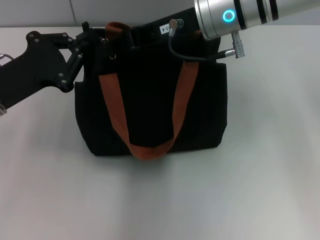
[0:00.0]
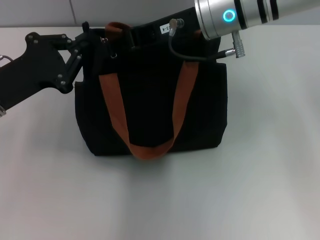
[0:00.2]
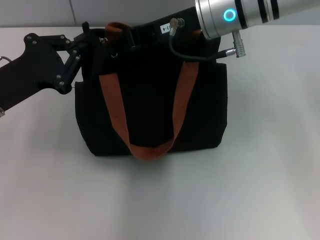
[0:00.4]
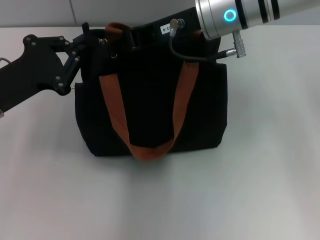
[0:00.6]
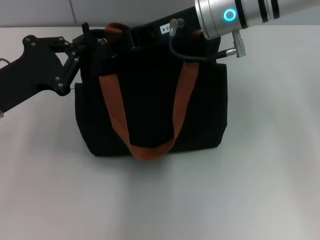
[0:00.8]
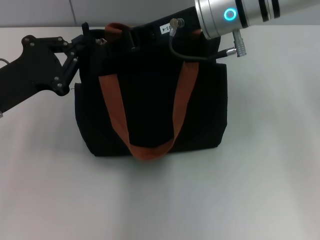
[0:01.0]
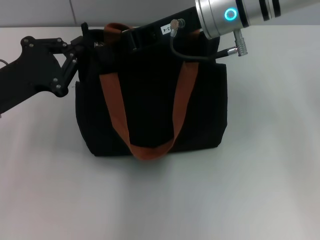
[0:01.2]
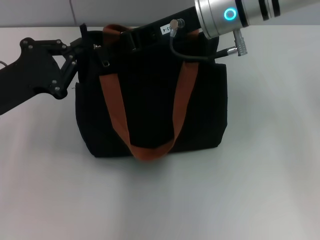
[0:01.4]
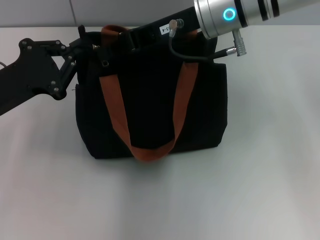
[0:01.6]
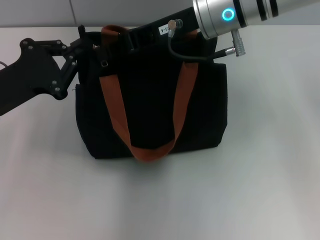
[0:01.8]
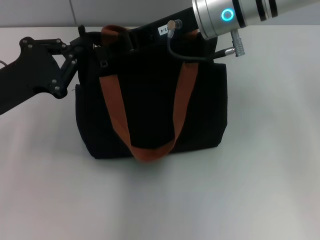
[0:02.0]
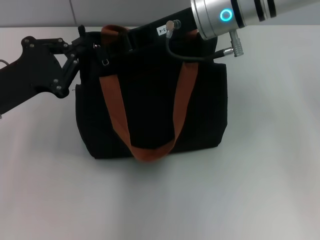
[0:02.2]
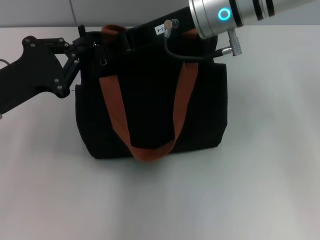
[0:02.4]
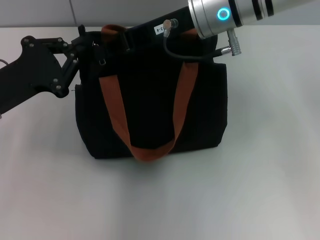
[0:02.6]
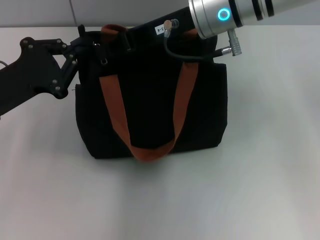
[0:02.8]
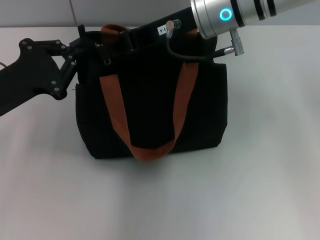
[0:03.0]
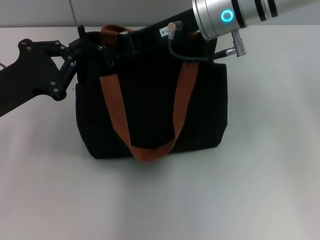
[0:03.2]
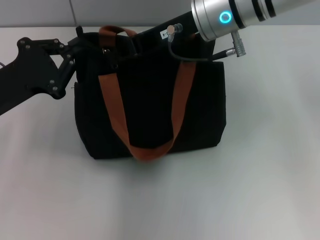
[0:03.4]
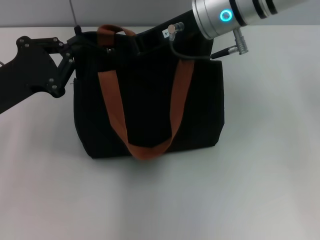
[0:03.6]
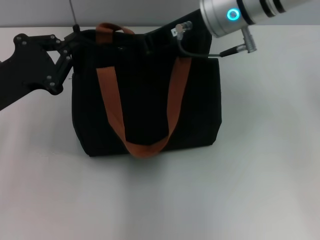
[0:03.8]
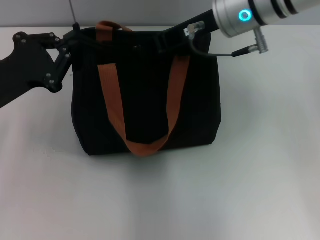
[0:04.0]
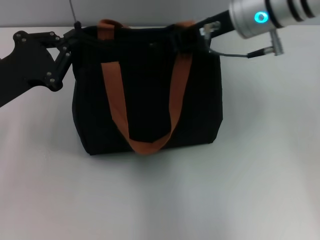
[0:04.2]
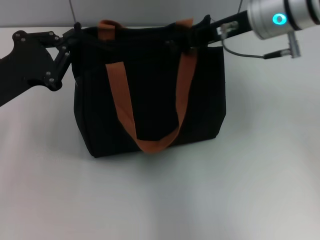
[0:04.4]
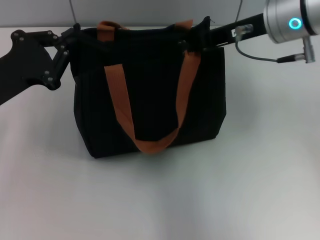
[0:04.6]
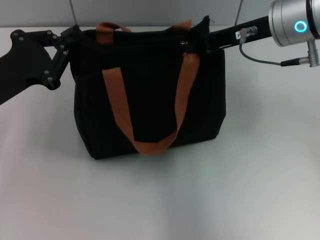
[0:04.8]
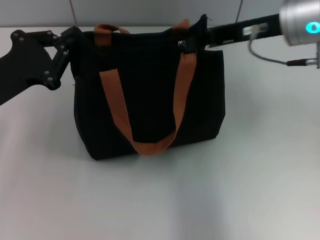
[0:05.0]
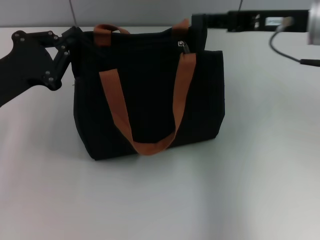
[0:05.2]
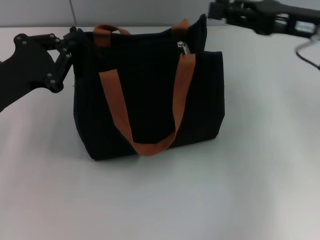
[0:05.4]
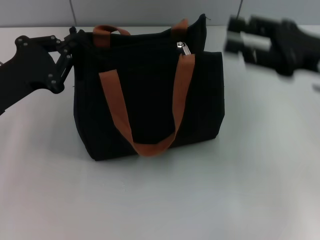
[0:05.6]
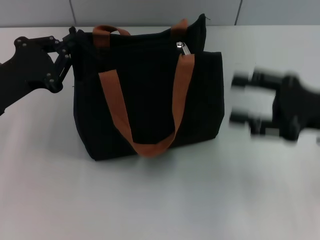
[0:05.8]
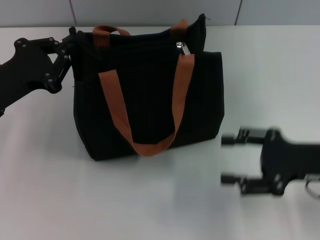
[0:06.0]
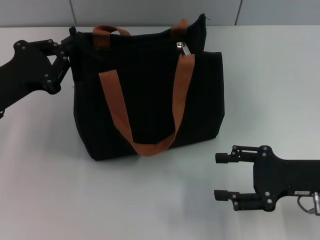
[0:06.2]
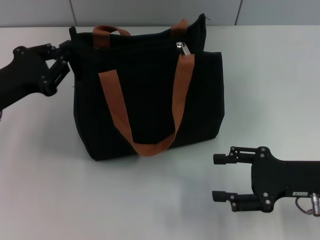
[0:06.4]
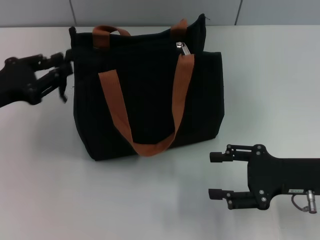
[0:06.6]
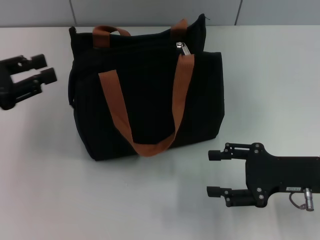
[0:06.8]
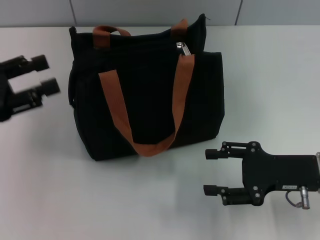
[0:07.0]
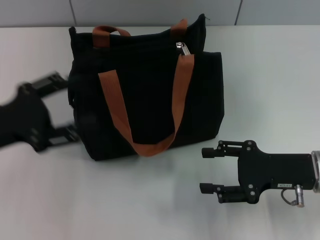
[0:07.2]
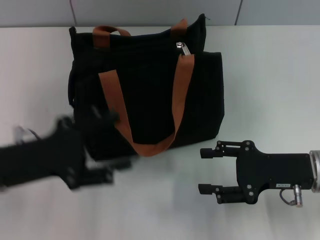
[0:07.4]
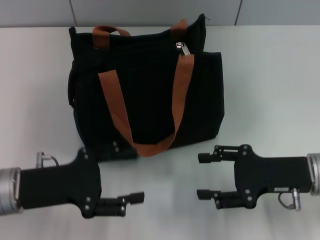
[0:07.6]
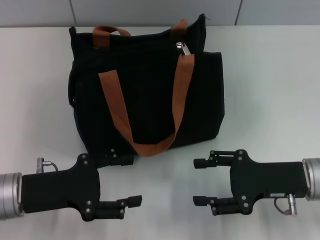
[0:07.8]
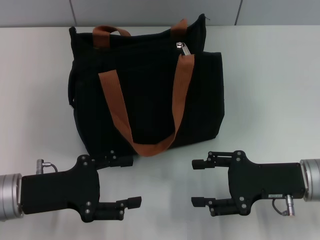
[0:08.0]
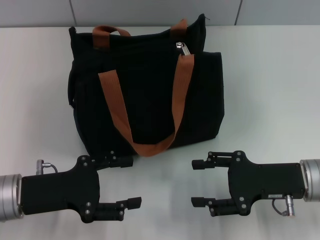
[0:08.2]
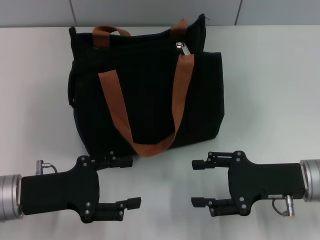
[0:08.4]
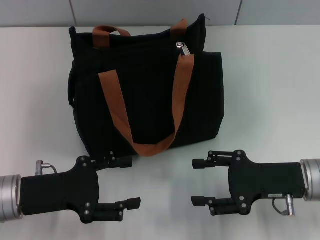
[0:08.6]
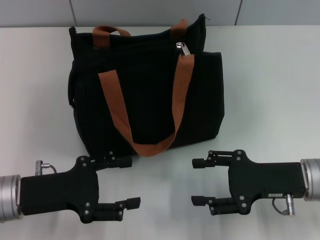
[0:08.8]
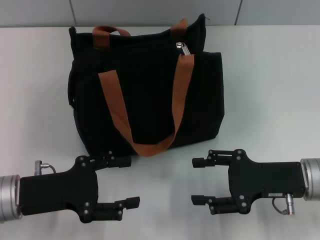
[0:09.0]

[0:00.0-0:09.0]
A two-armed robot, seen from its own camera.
Step, 0:00.0 to 0:05.0: Pull up the zipper with your right hand.
Step, 0:05.2 to 0:06.6: Grab the zipper with your left hand.
0:00.0 to 0:03.0: Both grippers stay about where they are.
0:03.0 to 0:04.4: The right gripper shifts about 5 cm to the right.
0:04.4 to 0:06.0: The right gripper is displaced downward, backward and to the right by roughly 25 cm, and opens up.
0:06.0 to 0:07.6: The left gripper moves backward, about 5 cm, and opens up.
0:07.6 to 0:09.0: There are only small adjustments of the grippers.

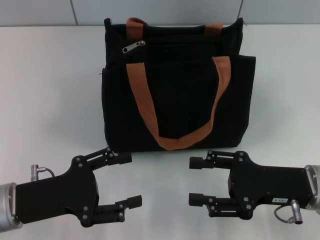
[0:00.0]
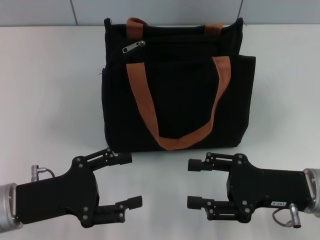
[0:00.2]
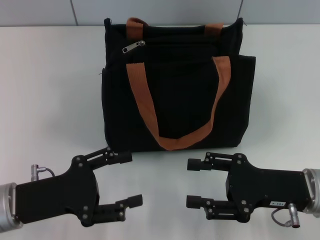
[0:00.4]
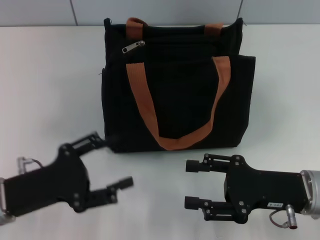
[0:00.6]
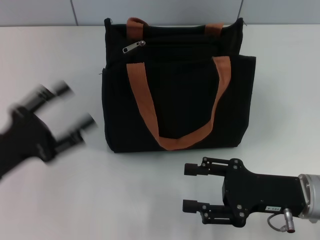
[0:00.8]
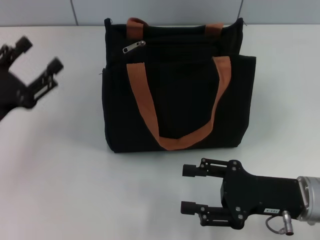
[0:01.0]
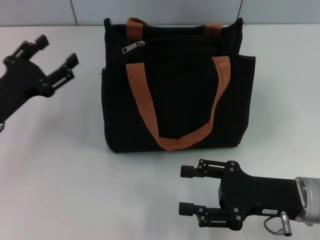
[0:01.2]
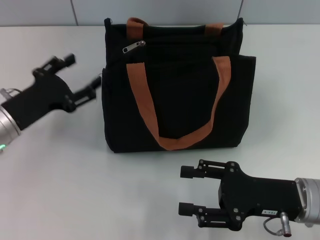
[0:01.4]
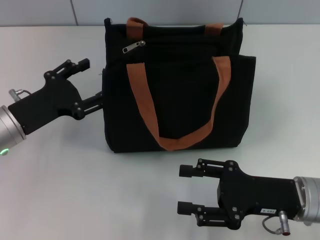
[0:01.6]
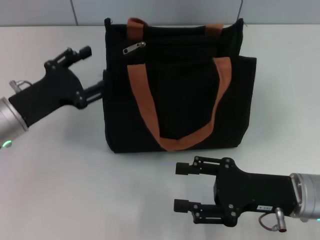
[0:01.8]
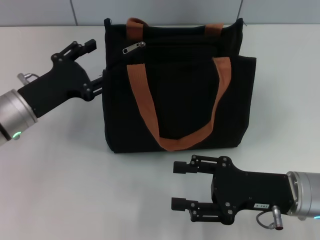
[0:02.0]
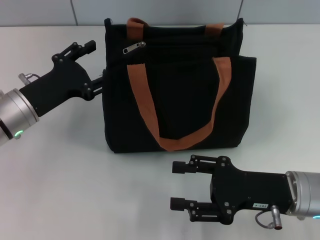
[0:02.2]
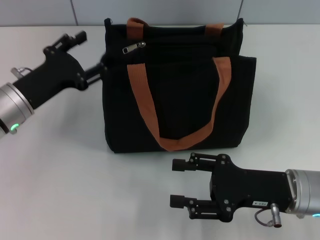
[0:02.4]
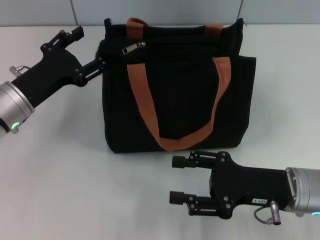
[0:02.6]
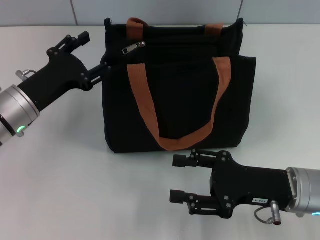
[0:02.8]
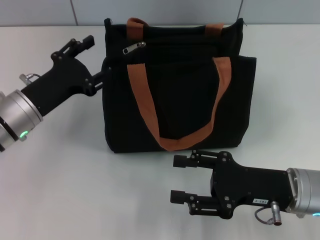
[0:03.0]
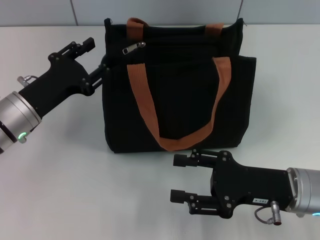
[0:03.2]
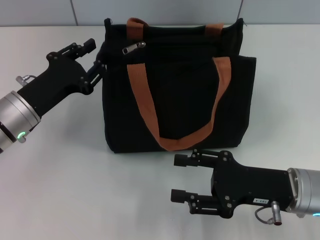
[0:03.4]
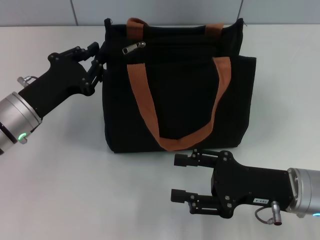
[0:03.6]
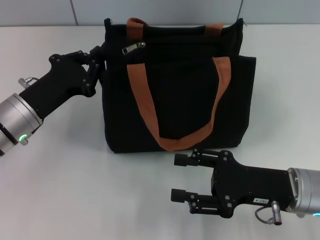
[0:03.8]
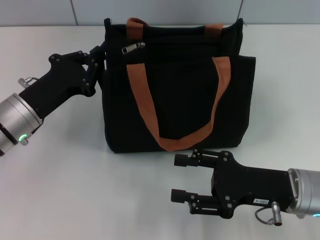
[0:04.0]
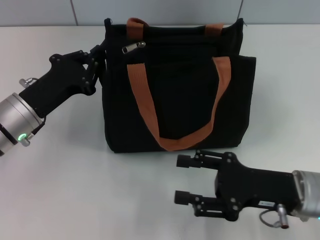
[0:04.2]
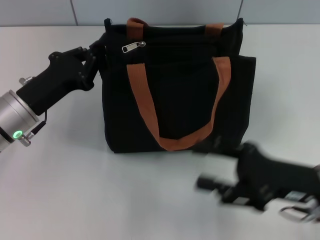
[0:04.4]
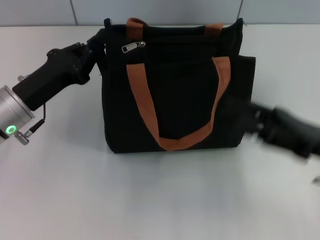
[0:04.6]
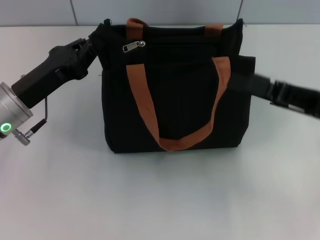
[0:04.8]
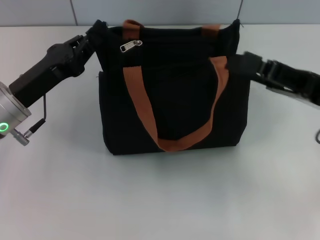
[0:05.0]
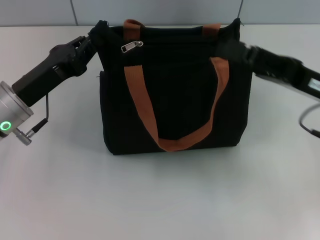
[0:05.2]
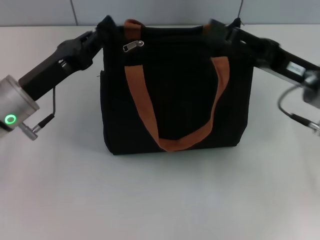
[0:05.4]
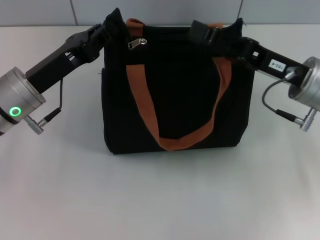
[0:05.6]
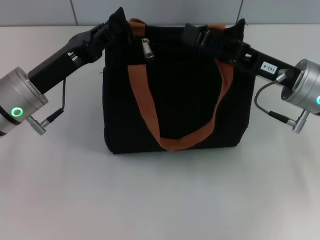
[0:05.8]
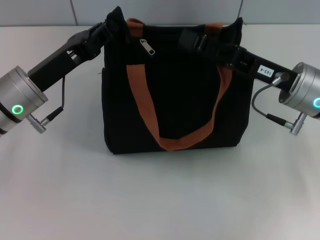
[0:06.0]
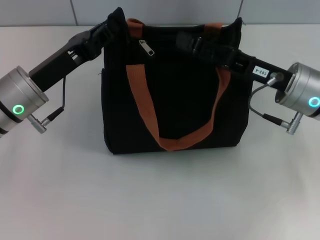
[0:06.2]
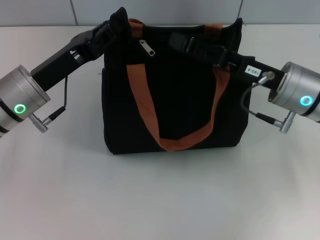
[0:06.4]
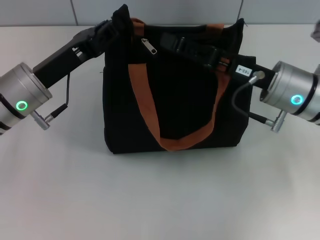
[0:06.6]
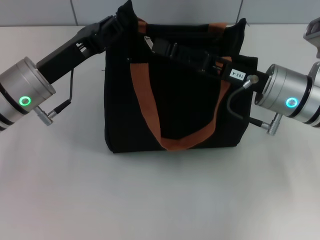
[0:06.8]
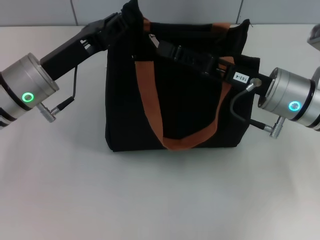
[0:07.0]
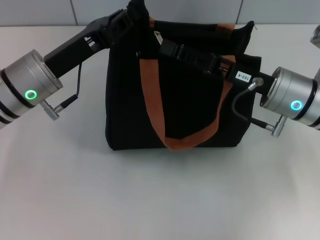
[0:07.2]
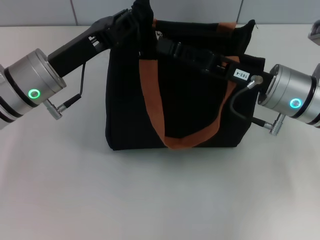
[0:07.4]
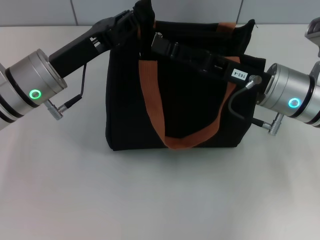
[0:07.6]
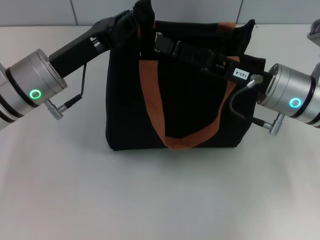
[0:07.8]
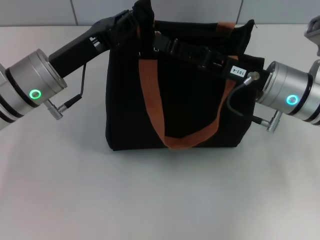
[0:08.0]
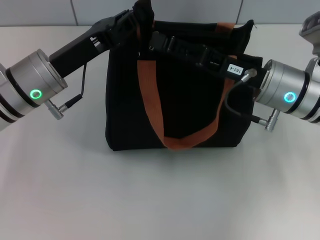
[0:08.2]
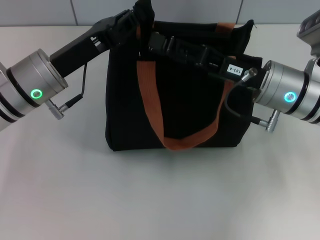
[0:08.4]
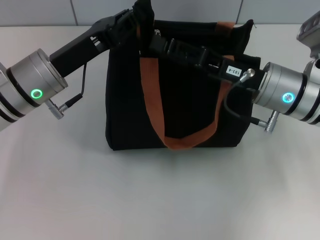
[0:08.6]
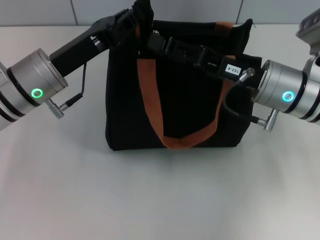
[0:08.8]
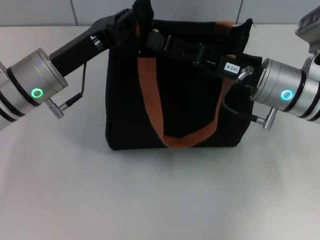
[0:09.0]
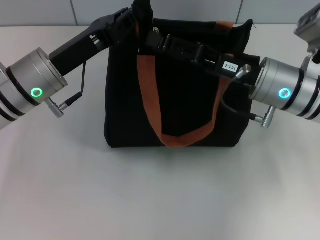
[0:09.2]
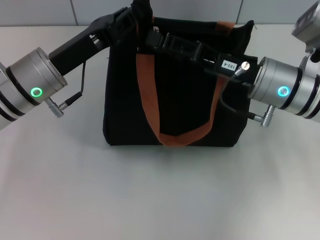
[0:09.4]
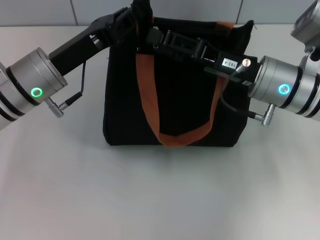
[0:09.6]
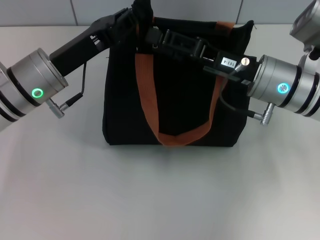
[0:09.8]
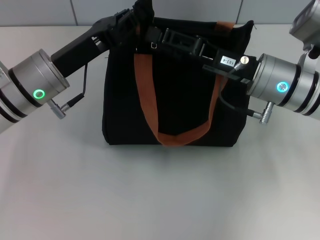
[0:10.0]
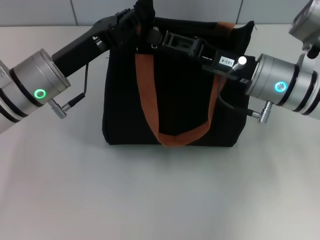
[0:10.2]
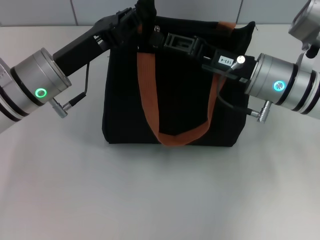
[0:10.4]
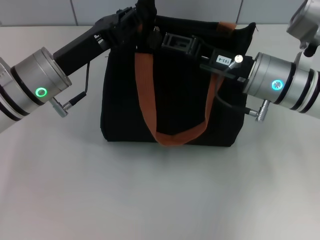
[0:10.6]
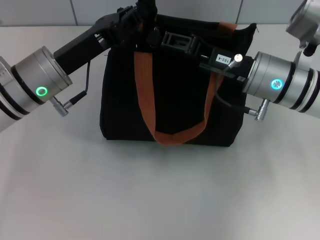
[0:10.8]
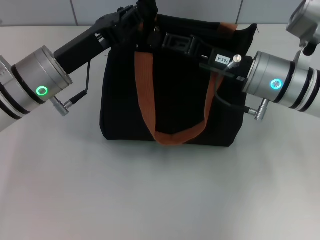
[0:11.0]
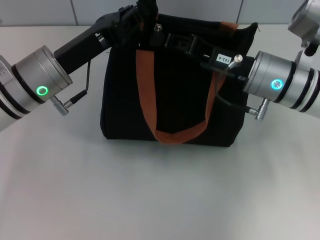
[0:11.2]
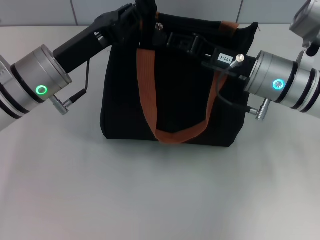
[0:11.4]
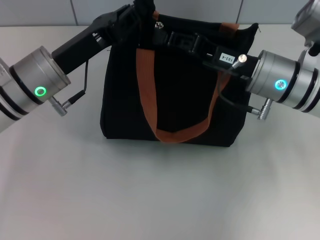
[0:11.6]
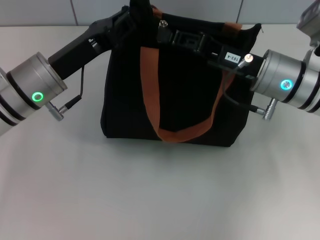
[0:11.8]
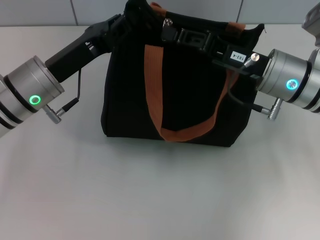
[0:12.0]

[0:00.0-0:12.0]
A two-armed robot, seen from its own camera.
0:00.0 to 0:01.6: The left gripper shifts some 10 cm forward.
0:01.6 to 0:03.0: The grippers move only a little.
0:03.0 to 0:04.4: The left gripper closes up.
0:04.4 to 0:06.0: The right gripper heads forward, covering approximately 10 cm.
0:06.0 to 0:10.4: The grippers make only small movements.
0:10.4 to 0:12.0: The right gripper closes its fingers.

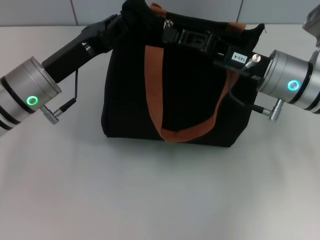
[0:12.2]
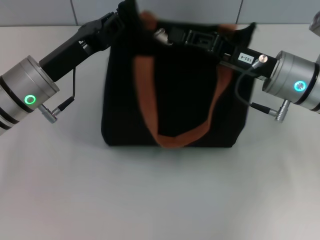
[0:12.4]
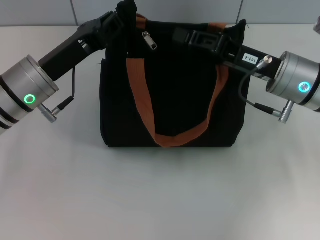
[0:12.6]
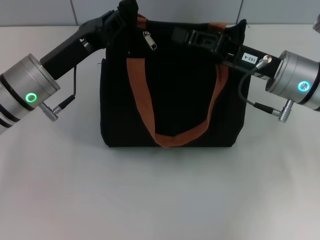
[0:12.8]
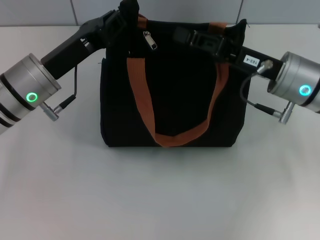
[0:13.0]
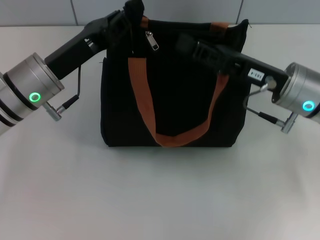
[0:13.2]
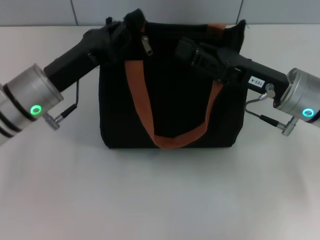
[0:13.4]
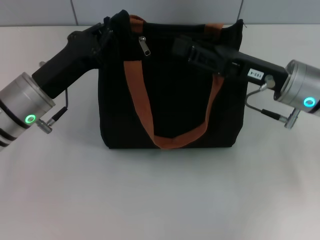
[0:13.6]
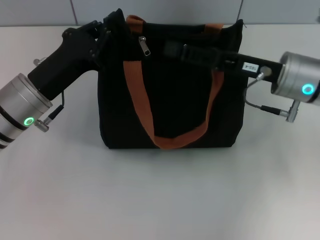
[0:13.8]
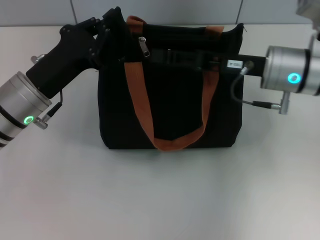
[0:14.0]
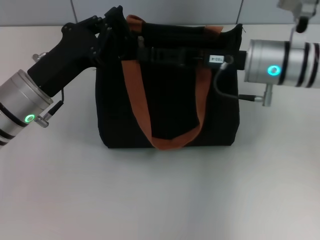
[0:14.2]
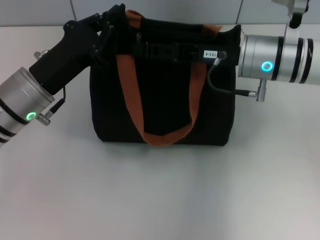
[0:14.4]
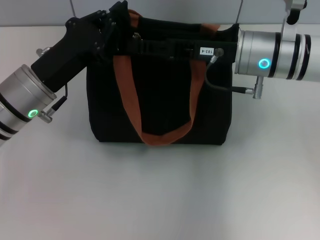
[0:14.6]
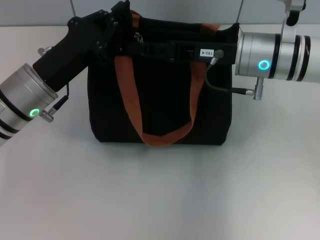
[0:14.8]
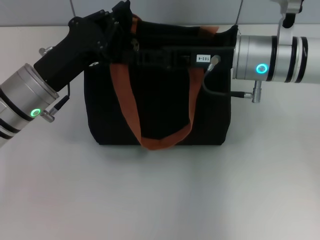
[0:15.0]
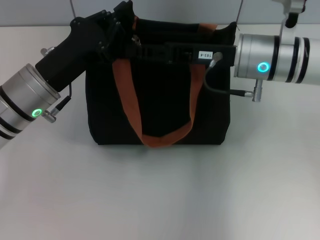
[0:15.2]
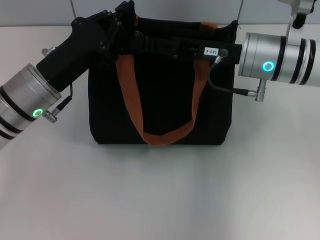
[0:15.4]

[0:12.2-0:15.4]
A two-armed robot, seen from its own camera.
0:12.2 to 0:13.8: The right gripper opens up.
0:13.8 to 0:15.4: The right gripper ends up roughly 5 cm from where it was.
